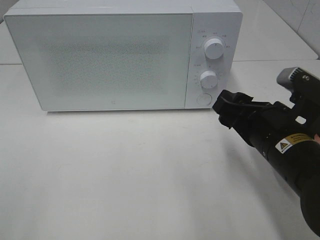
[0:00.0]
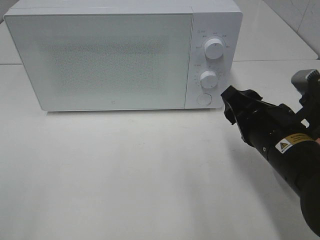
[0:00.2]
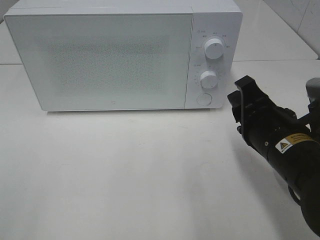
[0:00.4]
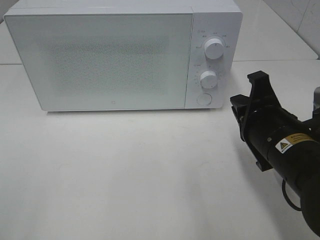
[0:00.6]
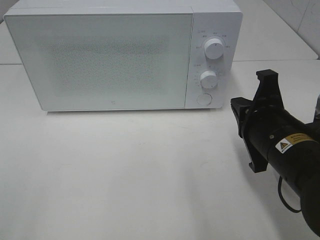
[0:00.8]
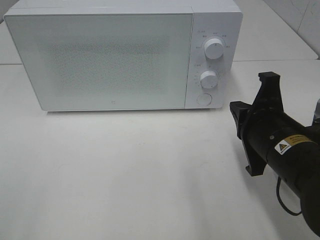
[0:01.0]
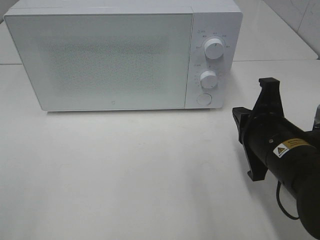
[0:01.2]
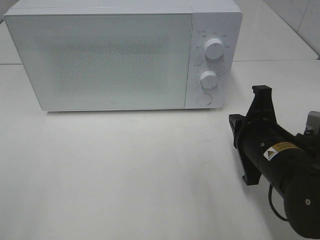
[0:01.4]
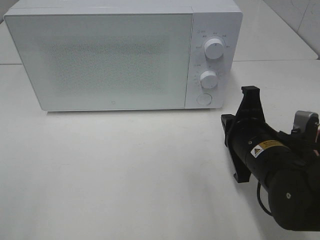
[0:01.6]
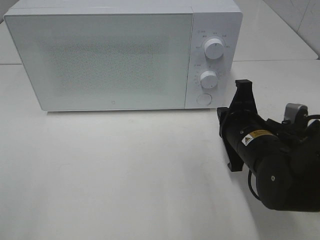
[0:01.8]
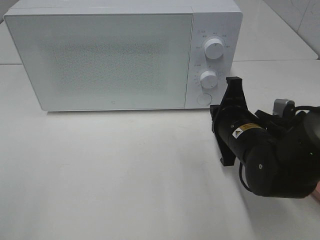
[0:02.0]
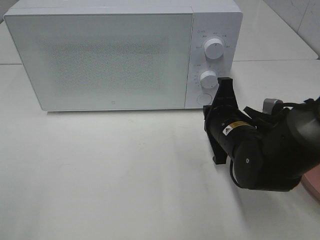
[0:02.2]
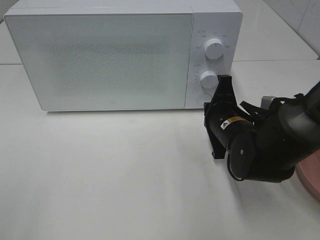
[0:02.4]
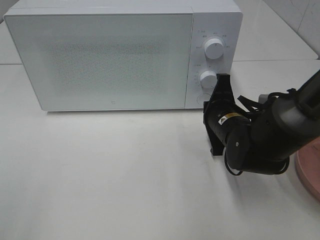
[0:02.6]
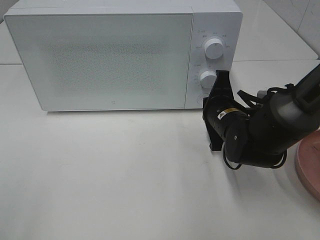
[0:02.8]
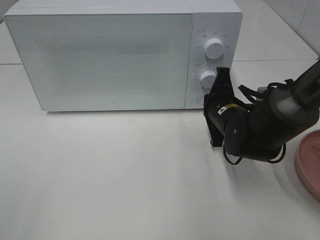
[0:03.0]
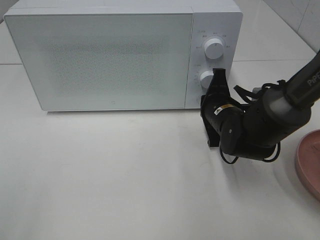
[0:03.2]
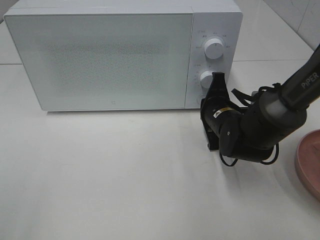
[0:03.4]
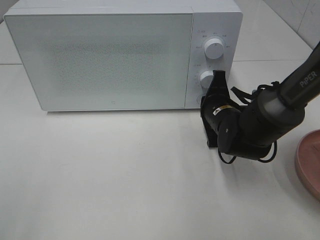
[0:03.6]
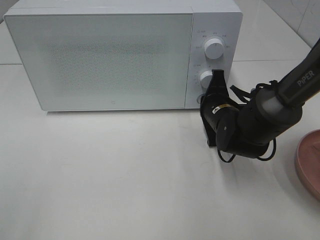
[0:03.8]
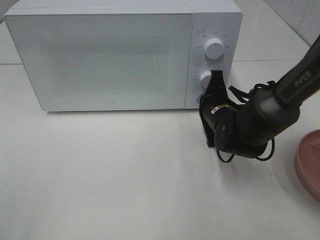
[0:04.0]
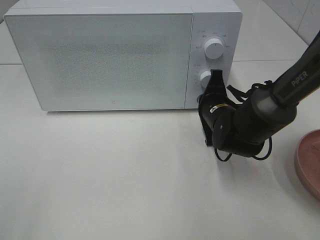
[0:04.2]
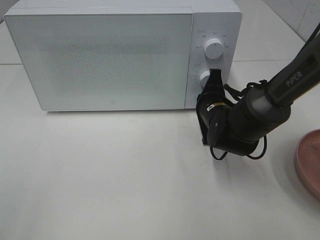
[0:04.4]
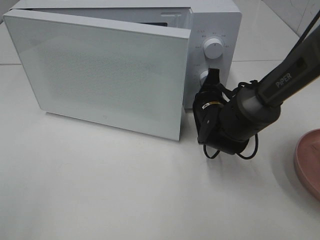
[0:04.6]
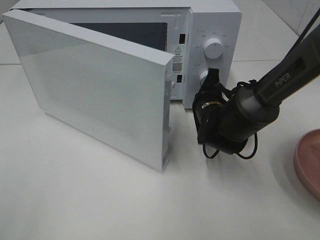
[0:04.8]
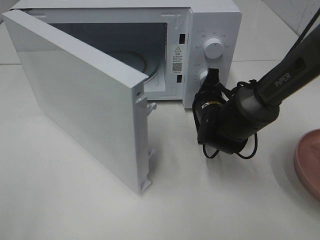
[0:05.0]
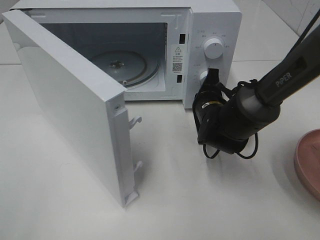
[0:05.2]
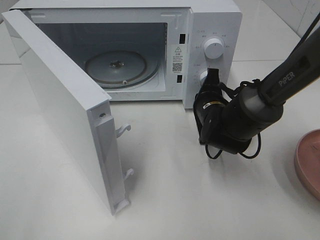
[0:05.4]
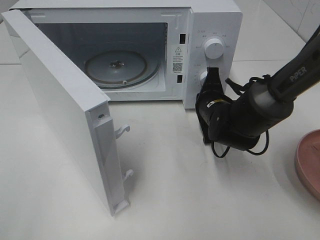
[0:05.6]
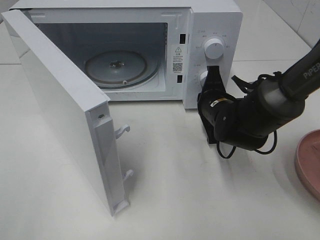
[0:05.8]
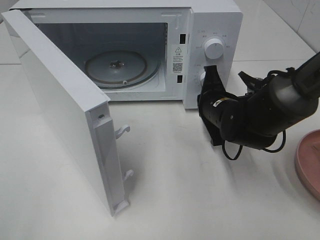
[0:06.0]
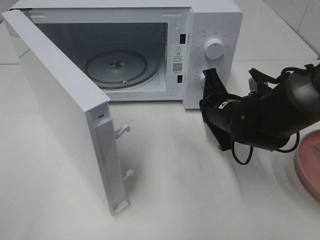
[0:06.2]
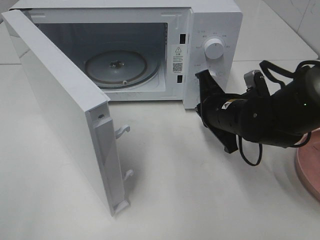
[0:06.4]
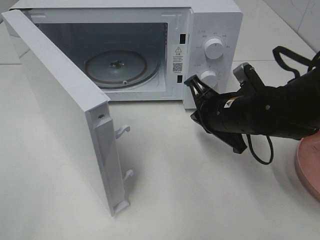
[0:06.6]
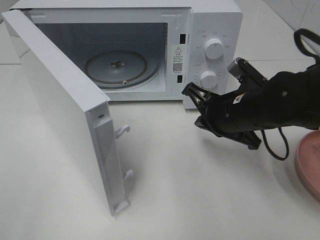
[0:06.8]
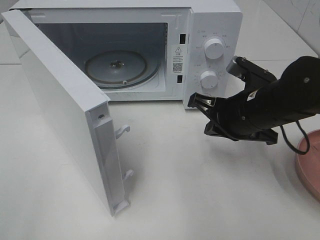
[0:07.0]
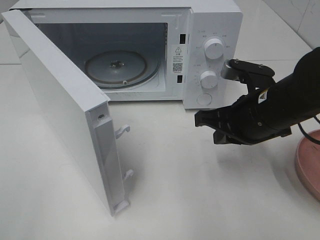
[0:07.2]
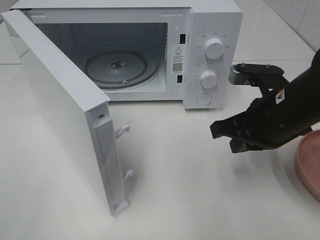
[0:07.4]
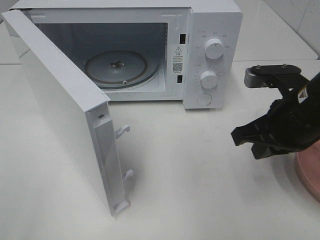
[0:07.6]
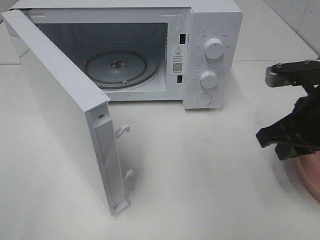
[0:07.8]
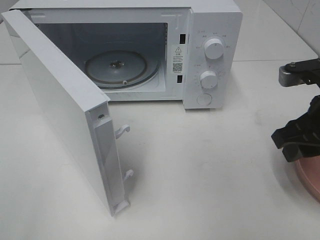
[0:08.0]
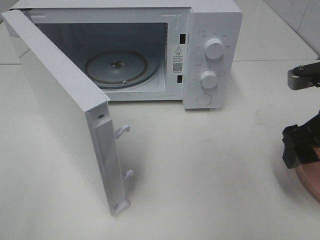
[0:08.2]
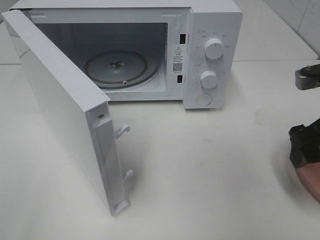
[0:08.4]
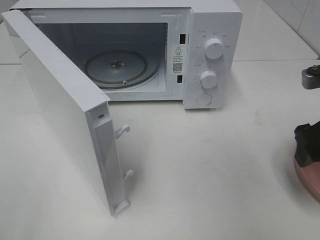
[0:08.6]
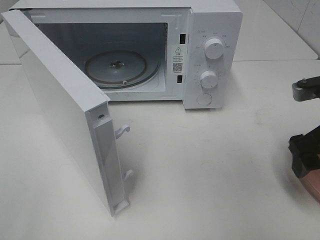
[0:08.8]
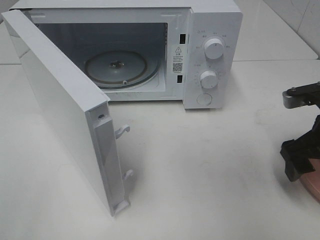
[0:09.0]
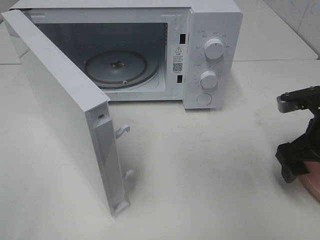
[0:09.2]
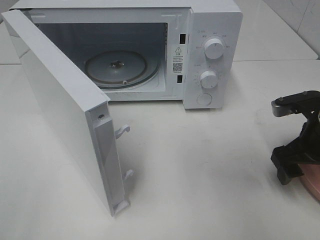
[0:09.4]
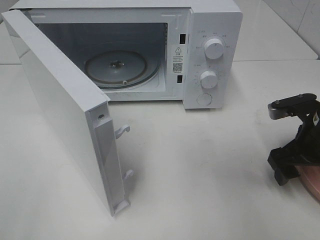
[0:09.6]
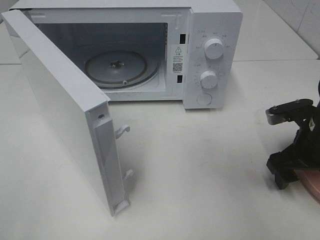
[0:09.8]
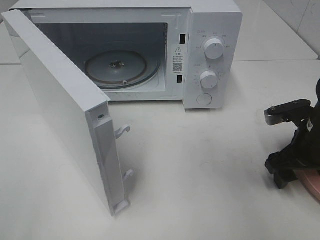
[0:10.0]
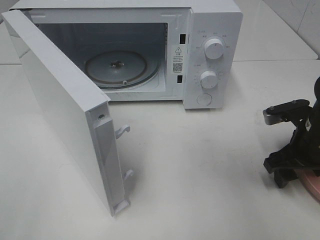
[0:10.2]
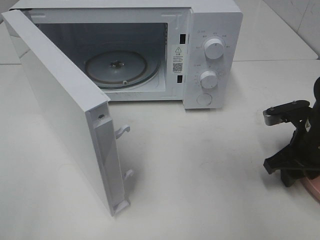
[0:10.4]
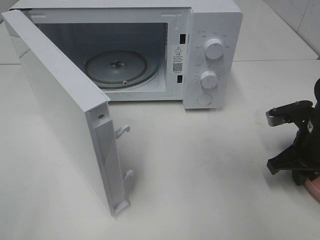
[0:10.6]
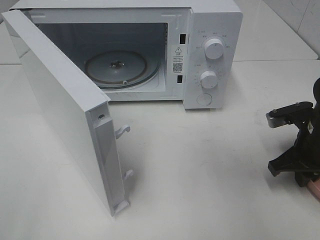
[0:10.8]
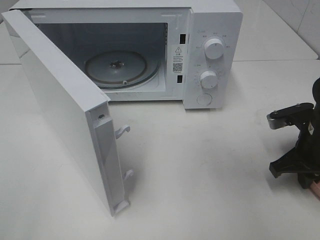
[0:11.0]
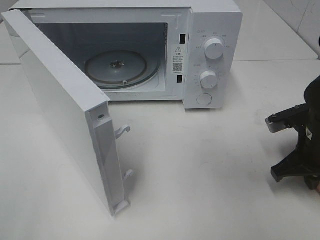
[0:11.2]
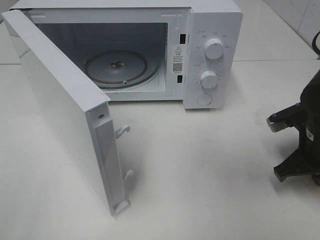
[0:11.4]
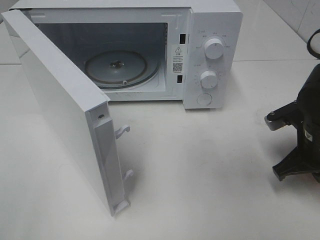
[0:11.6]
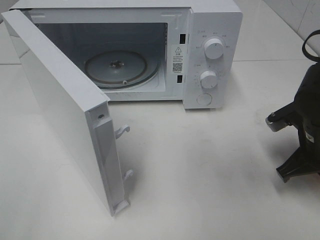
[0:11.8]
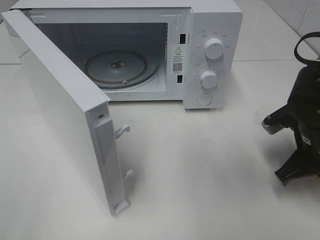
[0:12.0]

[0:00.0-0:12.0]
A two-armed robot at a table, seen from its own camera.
Task of the whole recording: Heat the burger.
Step, 0:00.0 to 0:06.2: Right hand: press the switch.
Step, 0:06.4 to 0:11.4: Right hand: grab the plate with the hamburger.
0:00.0 to 0:01.6: The right gripper closes up.
0:01.6 to 0:03.0: The right gripper shifts roughly 10 cm forward.
0:03.0 to 0:04.4: The grippers move only a little.
0:06.0 to 0:07.6: The right gripper travels backward, upward and to the right by approximately 15 cm.
0:07.6 to 0:09.0: The right gripper moves to the right, about 5 cm, and opens up.
0:09.0 to 0:10.4: The right gripper shifts some 5 cm downward, and closes its fingers.
0:10.4 to 0:12.0: The right gripper closes its fingers.

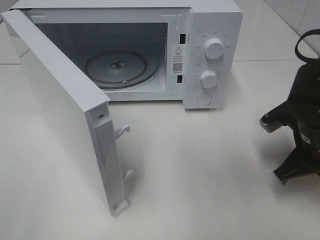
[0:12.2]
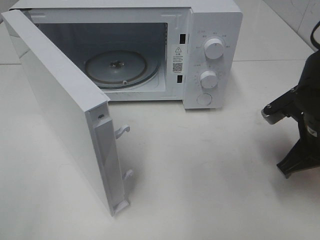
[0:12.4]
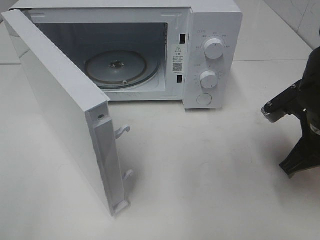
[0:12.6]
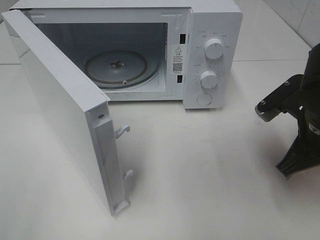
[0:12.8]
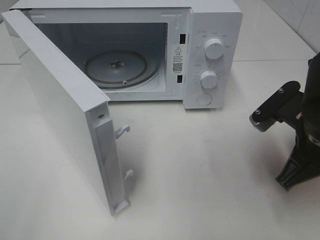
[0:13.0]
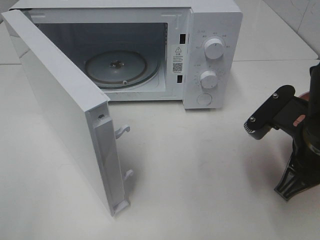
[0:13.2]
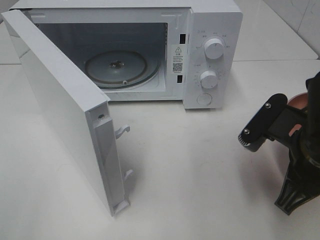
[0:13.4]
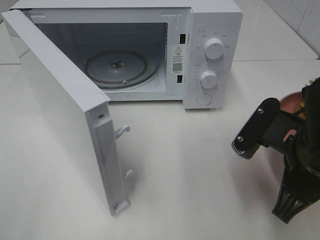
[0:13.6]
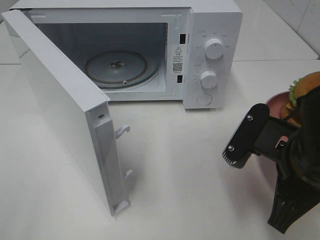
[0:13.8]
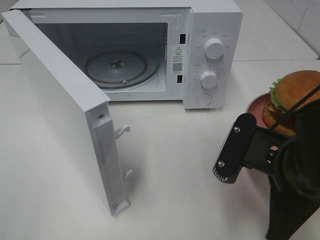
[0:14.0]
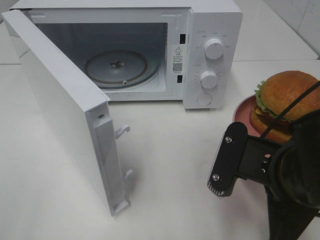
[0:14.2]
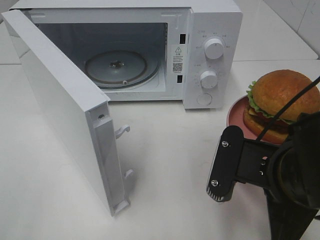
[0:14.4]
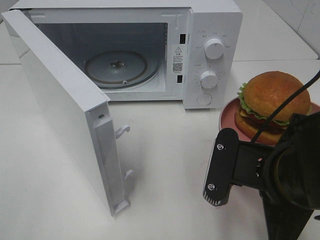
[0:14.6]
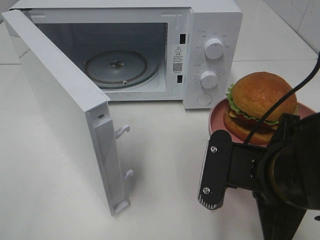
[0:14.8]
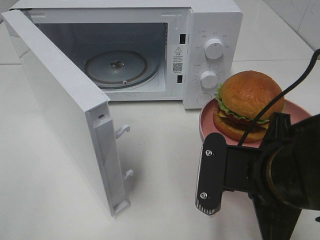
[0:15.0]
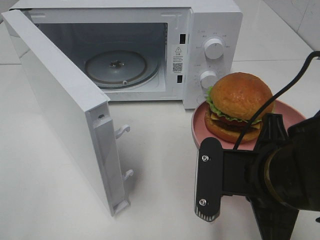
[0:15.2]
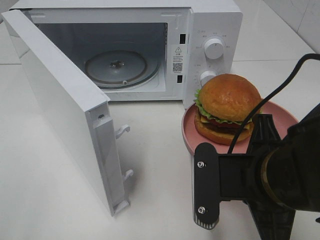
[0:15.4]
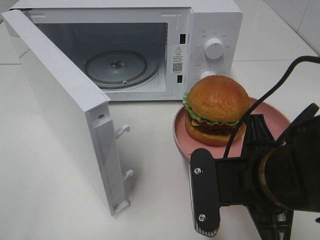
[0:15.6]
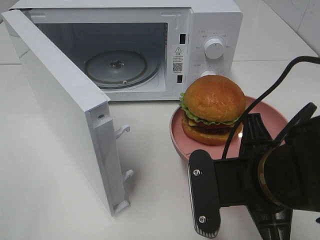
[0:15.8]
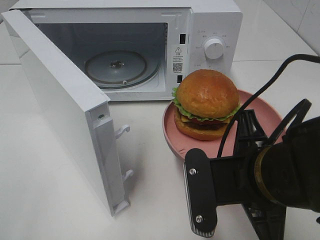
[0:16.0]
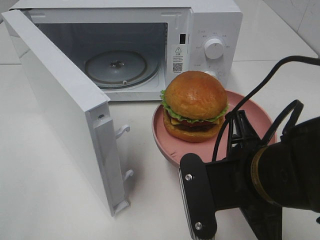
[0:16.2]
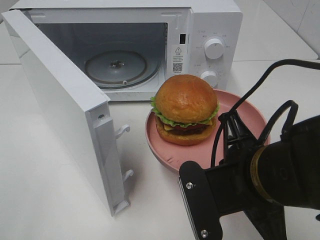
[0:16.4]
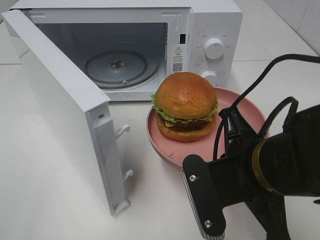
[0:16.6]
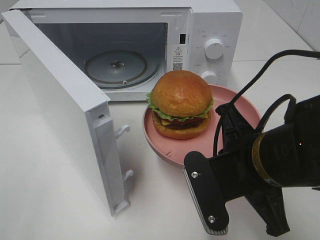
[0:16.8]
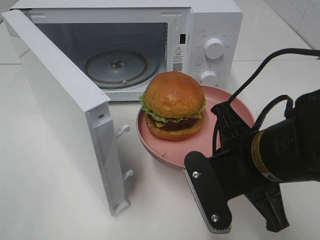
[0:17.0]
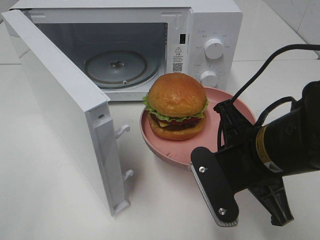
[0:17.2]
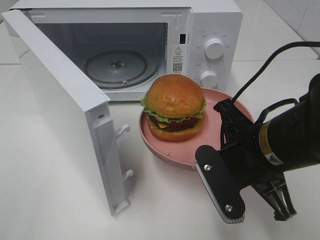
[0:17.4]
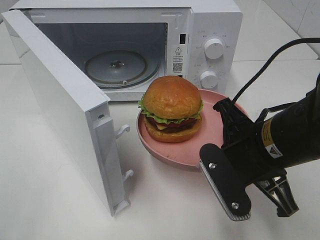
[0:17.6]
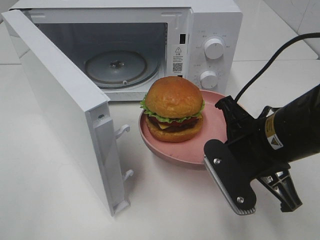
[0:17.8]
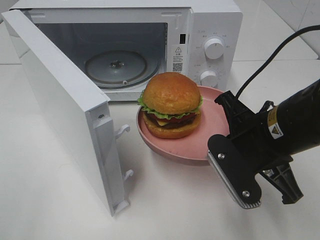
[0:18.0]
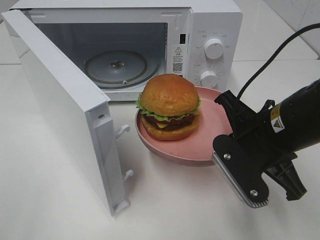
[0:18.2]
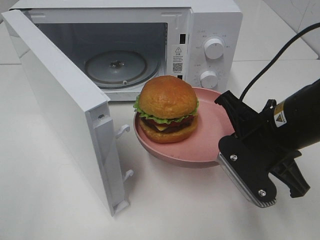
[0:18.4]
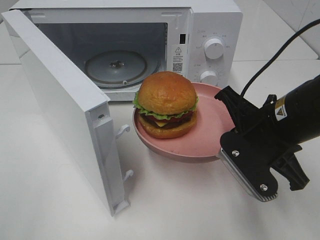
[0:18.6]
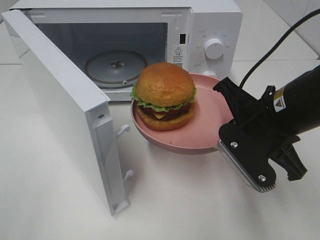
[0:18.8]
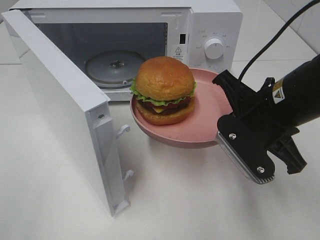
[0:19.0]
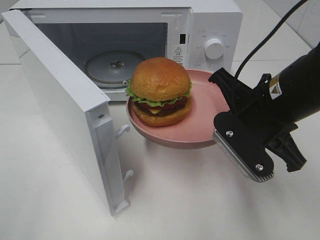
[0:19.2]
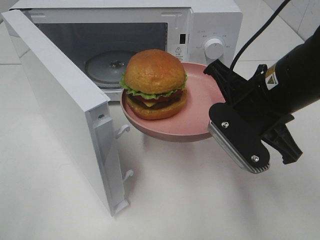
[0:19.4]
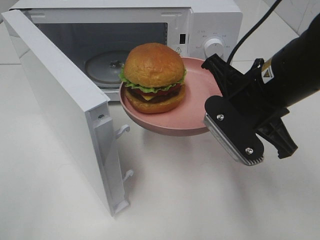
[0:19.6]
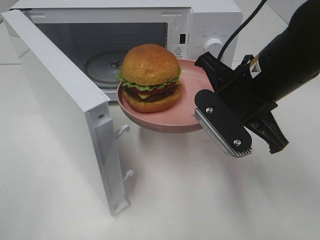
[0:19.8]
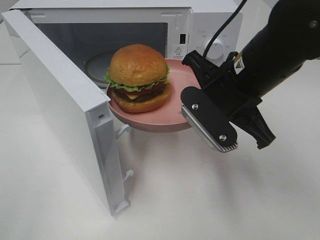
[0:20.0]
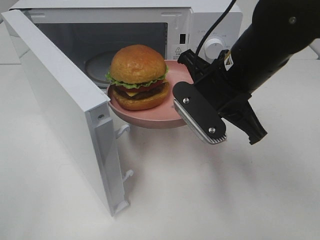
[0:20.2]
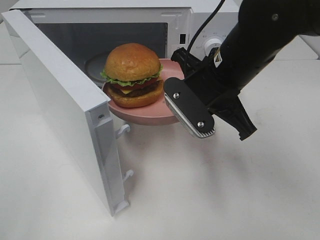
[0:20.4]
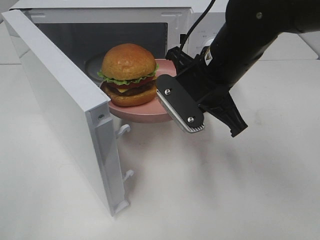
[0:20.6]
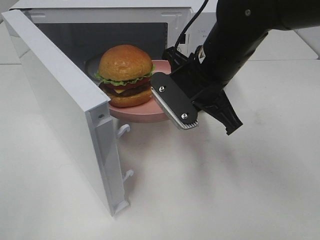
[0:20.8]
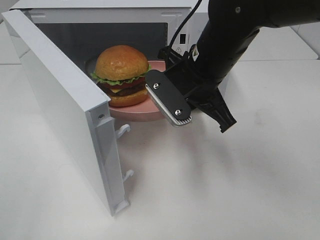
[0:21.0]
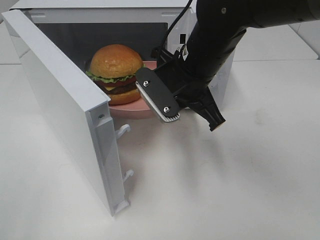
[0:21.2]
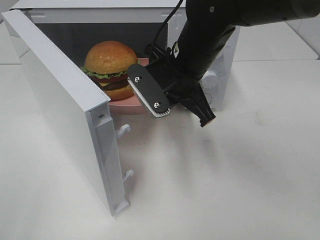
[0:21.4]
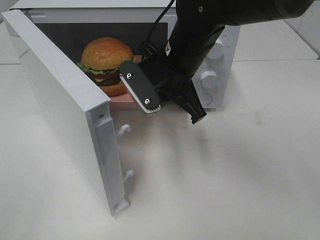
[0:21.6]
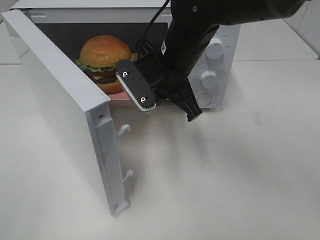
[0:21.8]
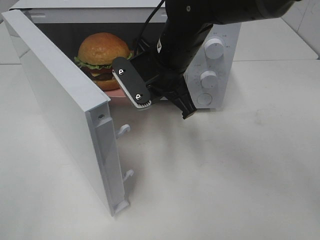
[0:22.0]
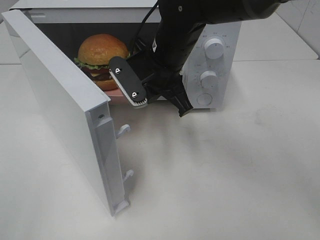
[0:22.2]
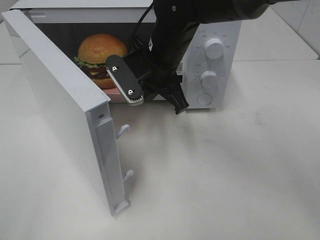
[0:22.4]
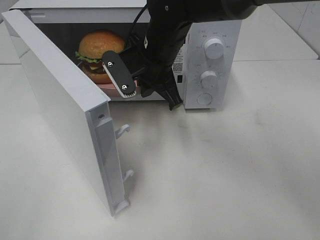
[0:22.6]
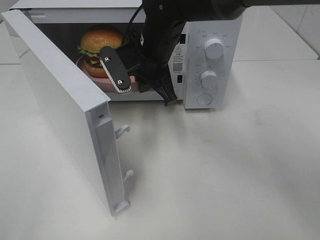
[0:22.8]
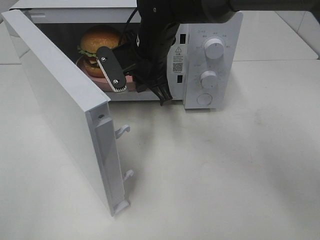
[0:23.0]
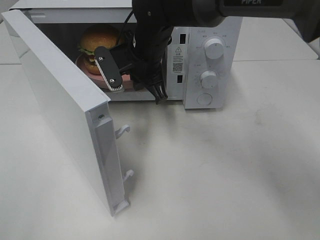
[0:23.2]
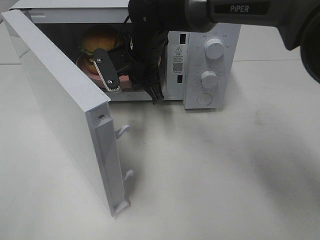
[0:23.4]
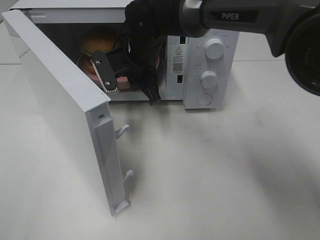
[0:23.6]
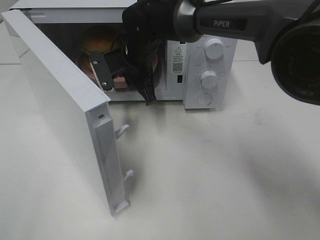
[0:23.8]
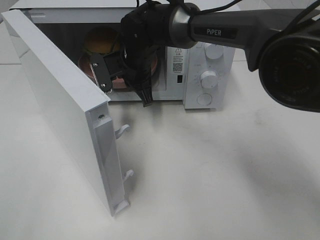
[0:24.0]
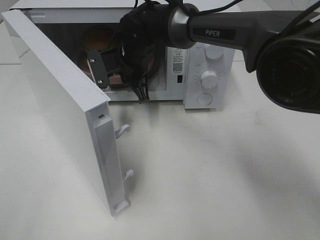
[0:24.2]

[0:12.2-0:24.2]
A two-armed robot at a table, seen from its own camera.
Task of the whole recording: Heat the burger.
0:12.2 to 0:13.8: The right gripper moves backward and to the left, about 10 cm.
0:16.6 to 0:18.2: The right gripper travels forward by approximately 5 cm.
0:18.2 to 0:19.8: The right gripper shifts by roughly 5 cm.
0:19.8 to 0:21.2: The right gripper heads to the left and forward, covering some 10 cm.
0:21.2 to 0:22.6: The right gripper is displaced forward and to the left by some 10 cm.
0:22.6 to 0:24.2: The right gripper shifts roughly 5 cm forward.
